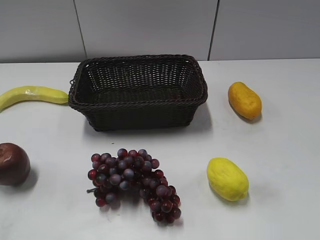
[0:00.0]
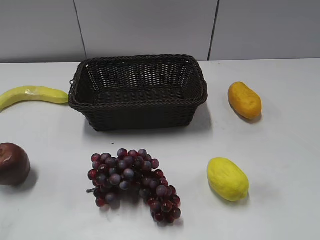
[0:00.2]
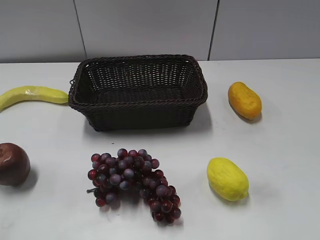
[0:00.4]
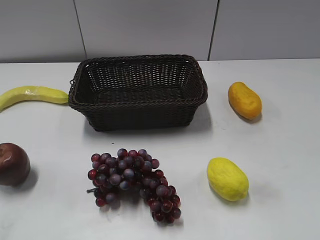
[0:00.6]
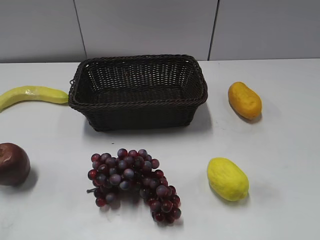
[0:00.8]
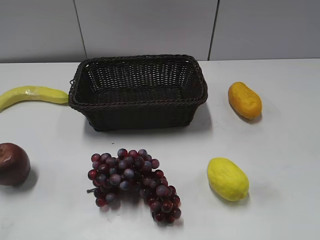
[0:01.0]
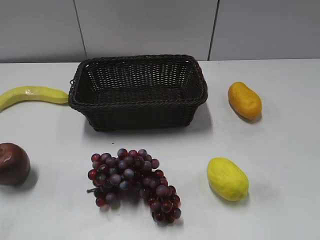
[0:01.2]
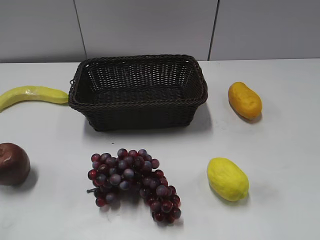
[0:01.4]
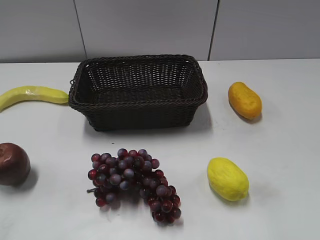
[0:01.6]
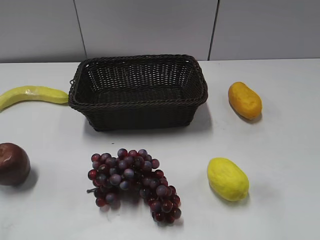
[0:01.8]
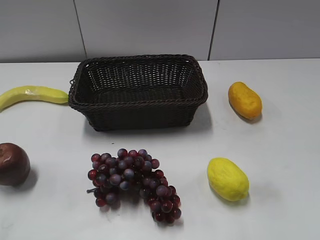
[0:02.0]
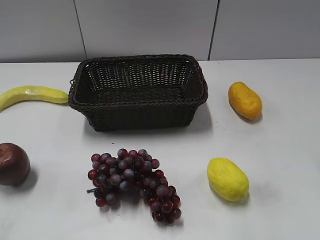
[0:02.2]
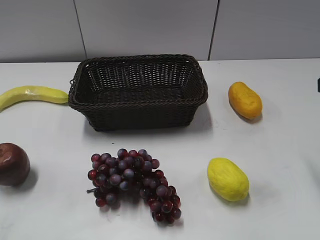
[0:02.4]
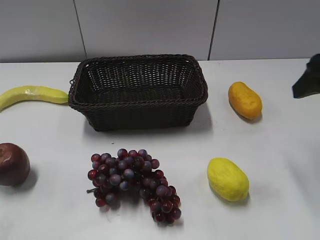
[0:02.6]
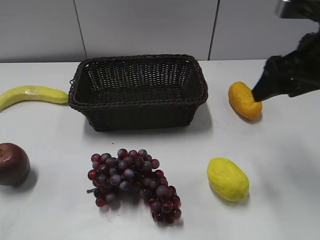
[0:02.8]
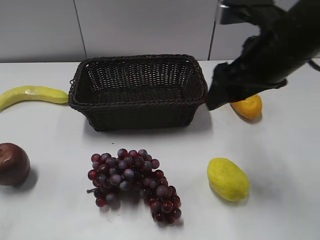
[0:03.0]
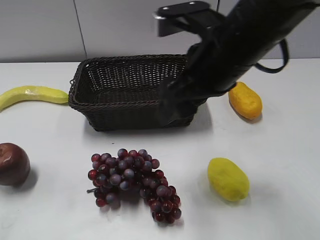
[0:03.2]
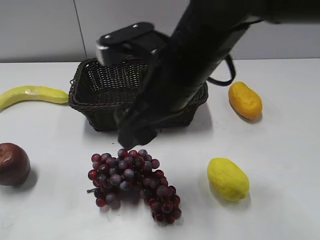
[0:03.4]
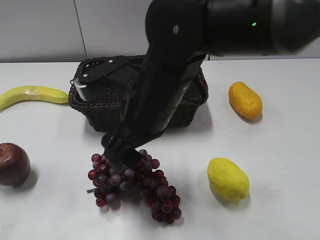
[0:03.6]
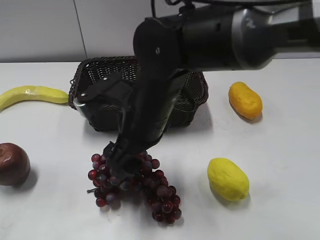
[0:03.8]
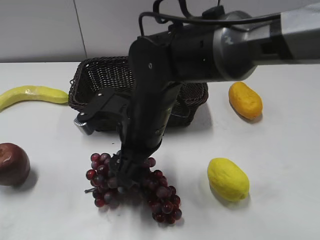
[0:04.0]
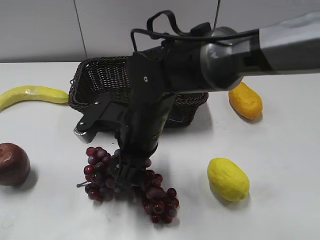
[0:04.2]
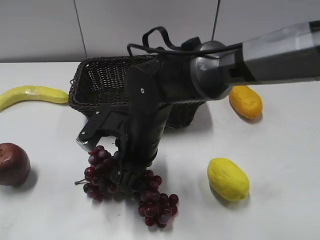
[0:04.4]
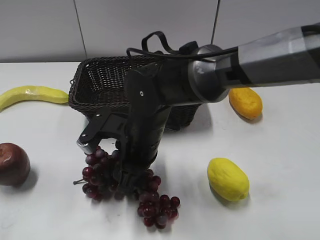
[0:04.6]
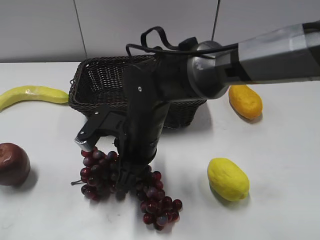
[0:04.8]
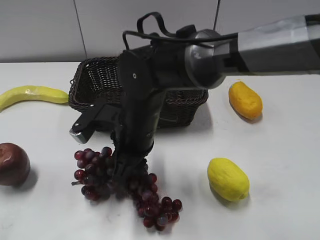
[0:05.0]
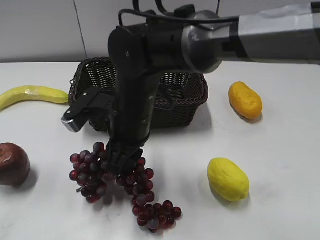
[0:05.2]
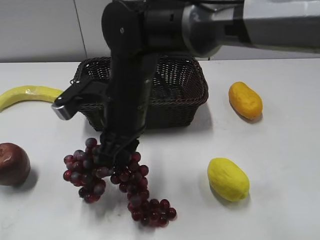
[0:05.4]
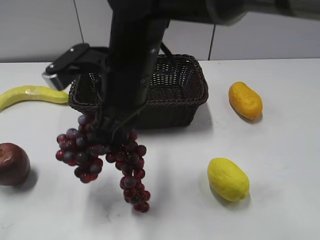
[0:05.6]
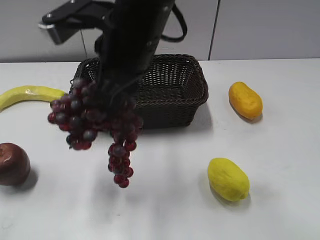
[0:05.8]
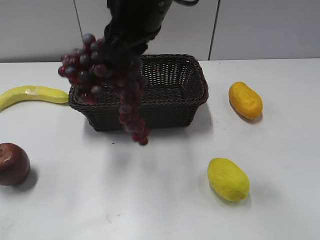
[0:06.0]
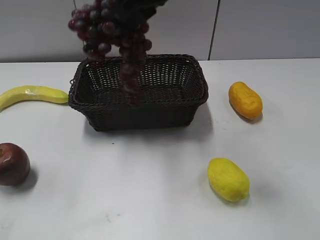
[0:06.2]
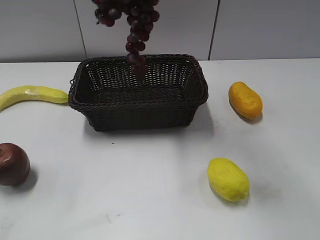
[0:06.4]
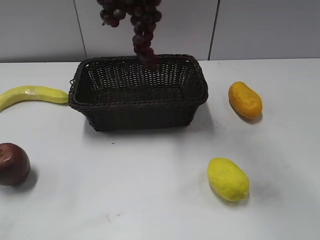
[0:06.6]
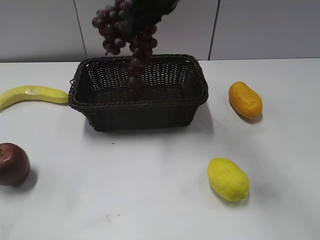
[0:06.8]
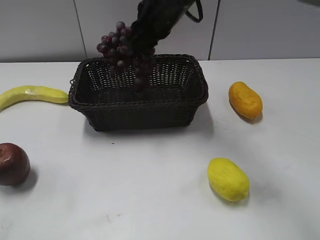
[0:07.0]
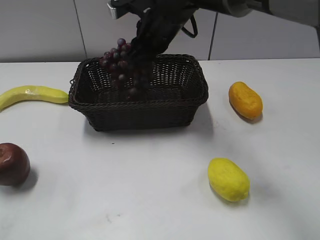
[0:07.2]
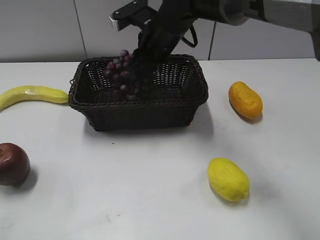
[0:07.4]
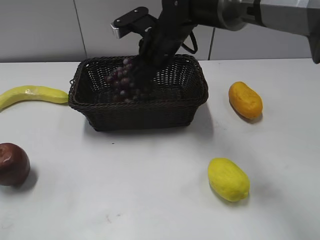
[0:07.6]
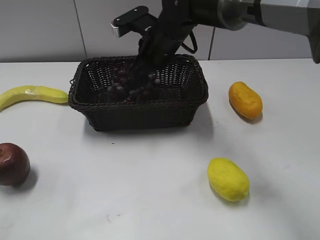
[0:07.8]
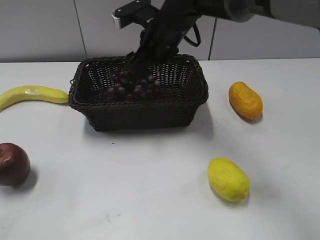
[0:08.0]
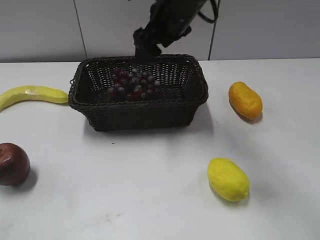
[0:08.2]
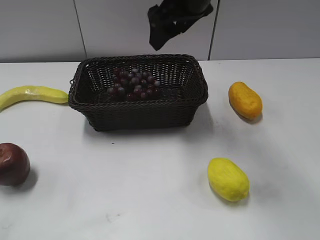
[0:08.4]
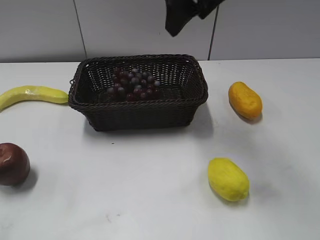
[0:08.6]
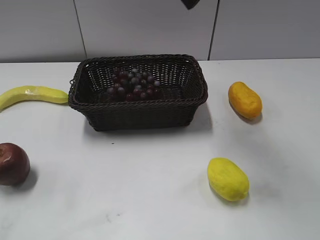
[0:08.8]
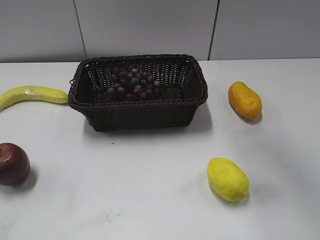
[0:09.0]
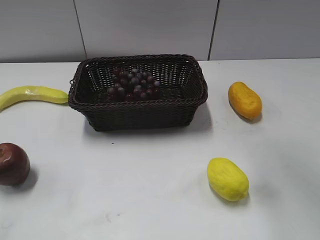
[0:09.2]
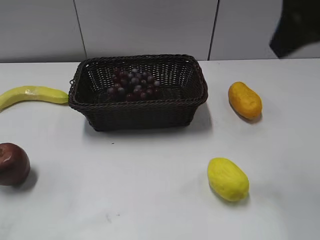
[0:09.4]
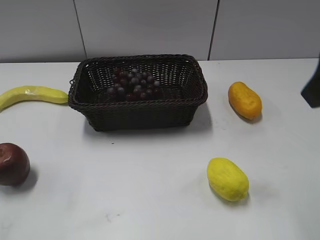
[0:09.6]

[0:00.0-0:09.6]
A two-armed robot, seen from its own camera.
Step, 0:02.2 to 0:05.2: Grasp the grape with right gripper.
Step, 0:05.4 to 0:08.0: Place the grape in the basket with right gripper.
0:01.6 to 0:03.2: The right gripper heads to the left and forward, covering about 30 cm.
0:03.2 to 0:04.8: The right gripper moves downward and to the left, approximately 20 cm, and closes up.
0:04.8 to 0:06.4: The right gripper is displaced upward and forward by some 25 cm.
0:06.4 to 0:08.0: The right gripper goes about 15 cm downward, and opens.
0:08.0 to 0:09.6: The right gripper shifts about 35 cm backward, to the right and upward.

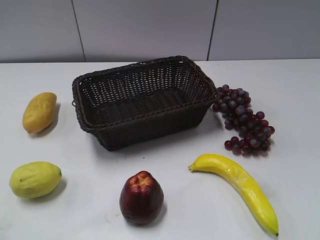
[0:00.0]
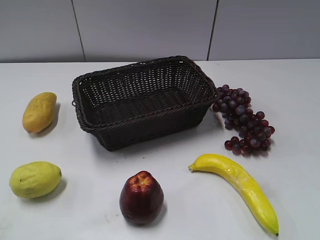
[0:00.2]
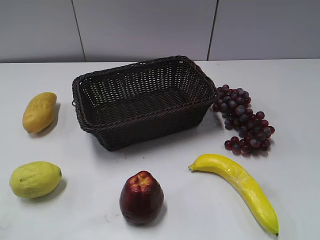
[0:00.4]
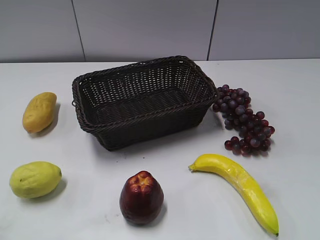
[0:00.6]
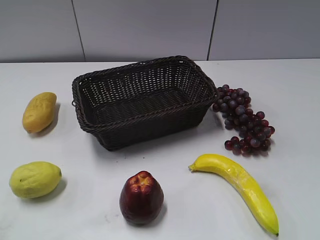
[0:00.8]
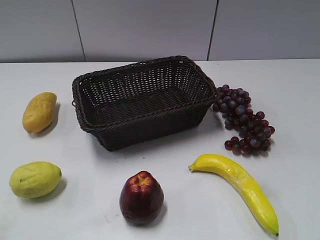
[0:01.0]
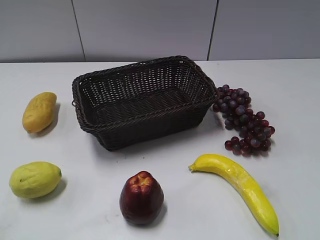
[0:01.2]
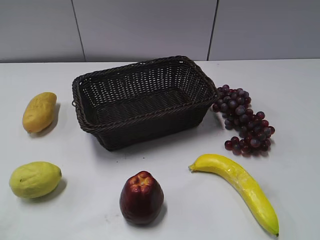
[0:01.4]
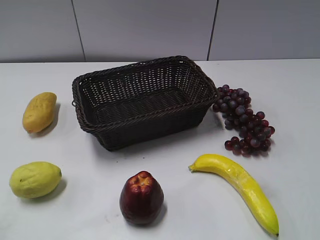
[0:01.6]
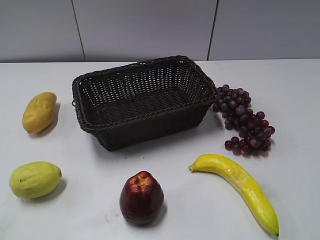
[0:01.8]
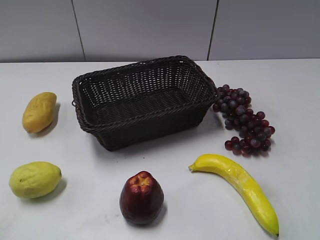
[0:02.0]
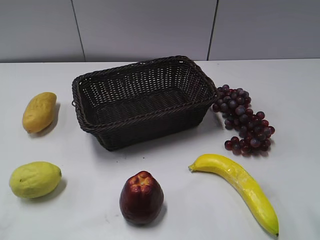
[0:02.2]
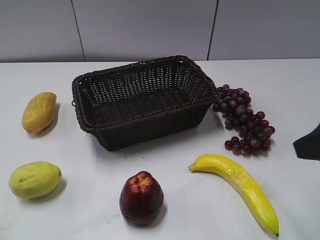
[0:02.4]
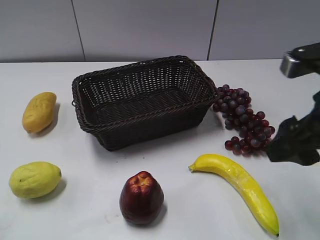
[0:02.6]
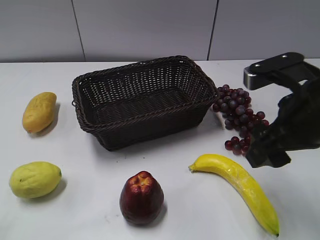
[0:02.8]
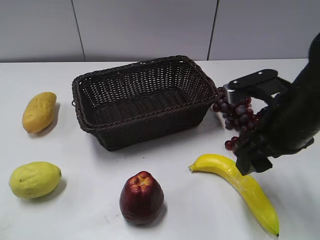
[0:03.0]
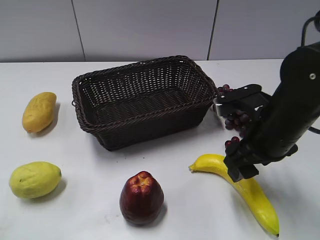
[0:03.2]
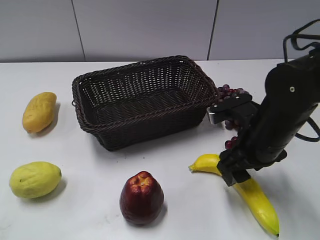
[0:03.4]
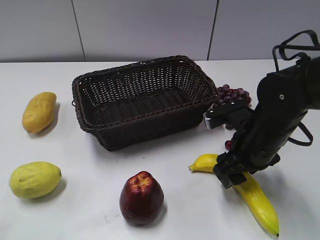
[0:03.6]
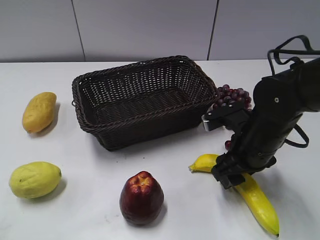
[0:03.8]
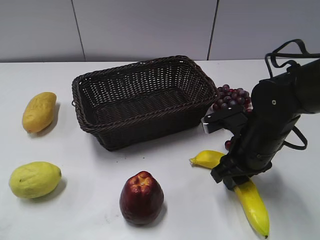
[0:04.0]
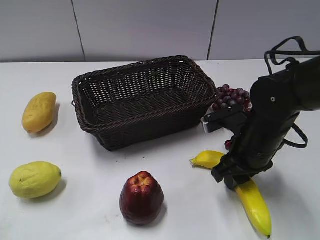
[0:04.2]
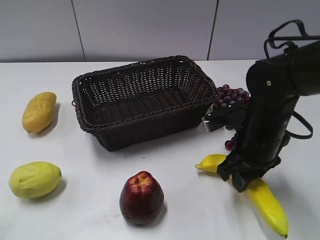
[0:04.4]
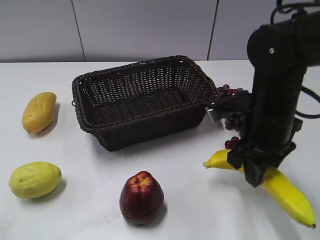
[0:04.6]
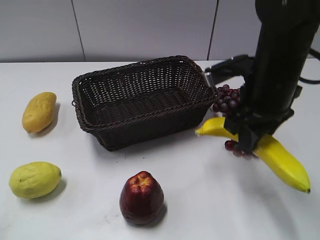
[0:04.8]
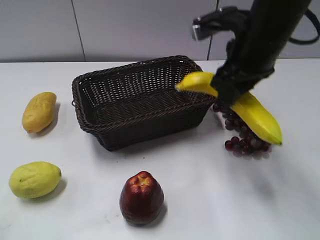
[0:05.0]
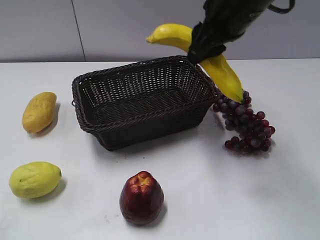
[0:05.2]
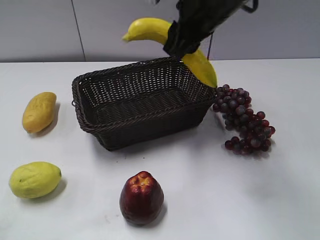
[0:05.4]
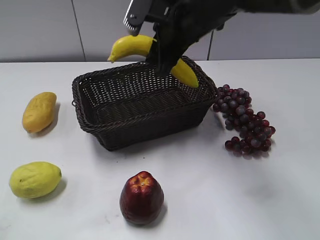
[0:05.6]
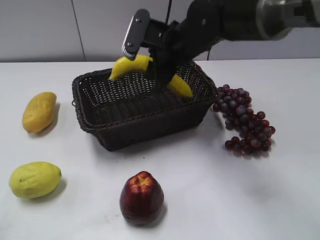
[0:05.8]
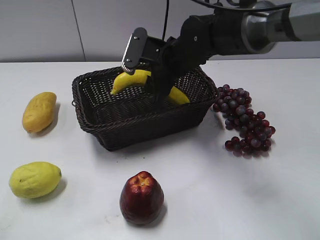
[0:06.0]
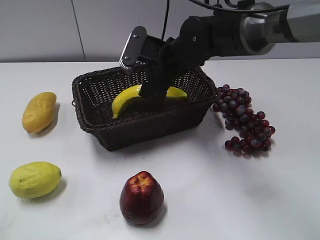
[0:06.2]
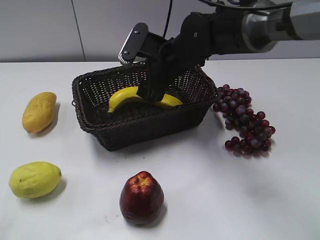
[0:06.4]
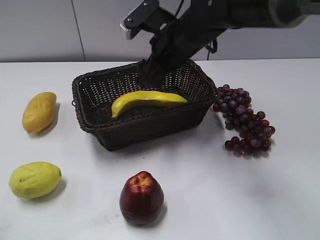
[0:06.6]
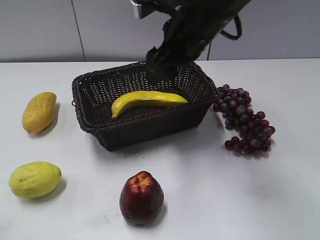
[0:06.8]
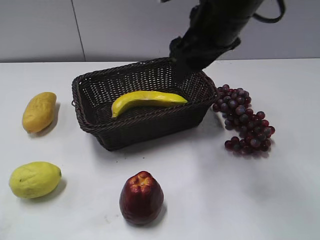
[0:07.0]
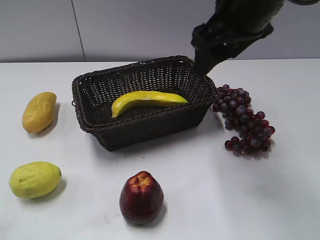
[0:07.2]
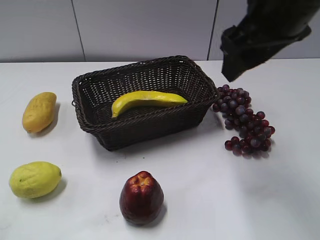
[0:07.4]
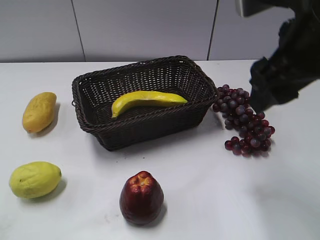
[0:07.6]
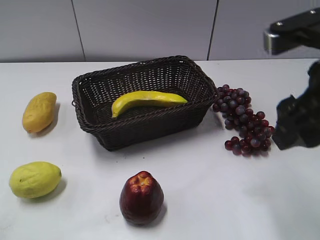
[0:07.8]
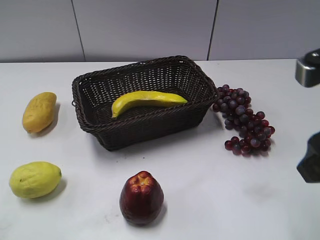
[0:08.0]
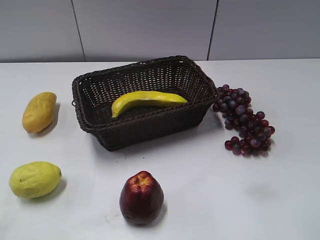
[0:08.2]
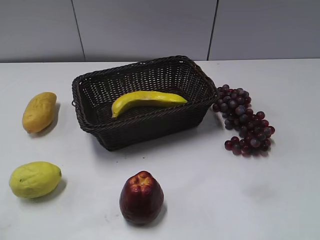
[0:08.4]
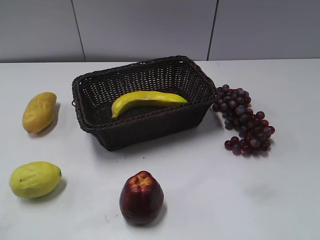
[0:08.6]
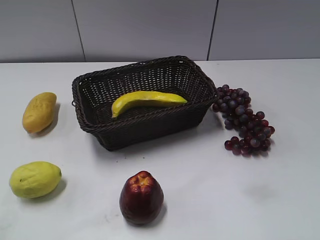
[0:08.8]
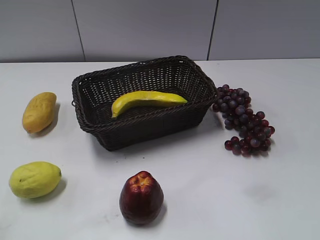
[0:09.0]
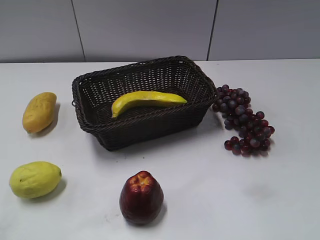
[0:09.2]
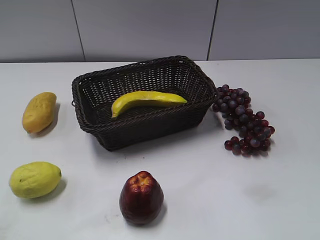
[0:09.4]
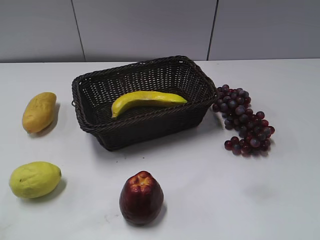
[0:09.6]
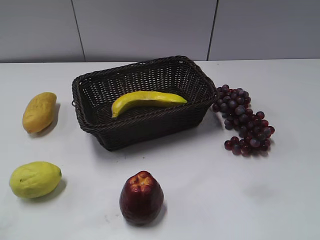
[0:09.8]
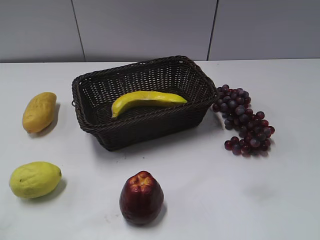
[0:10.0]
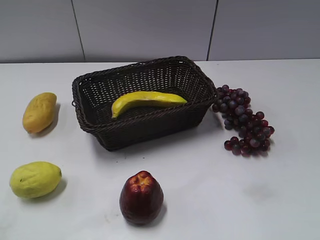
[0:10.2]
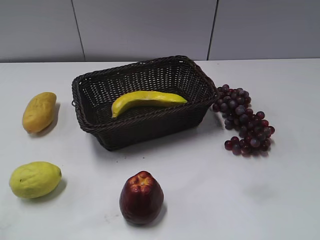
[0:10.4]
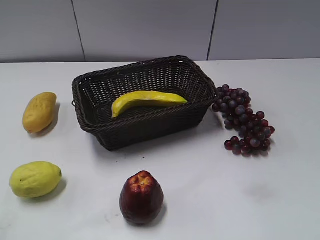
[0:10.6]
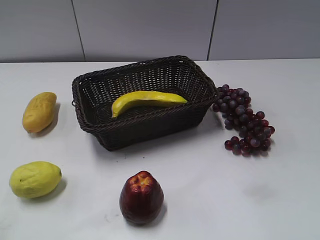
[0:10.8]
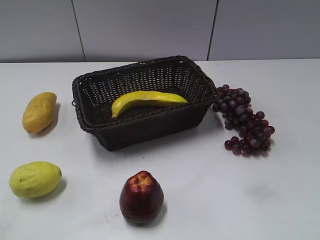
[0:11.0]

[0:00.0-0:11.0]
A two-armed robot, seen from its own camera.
Step, 0:02.4 to 0:04.2: Grasp the banana with right gripper.
Step, 0:04.4 to 0:06.4: Place the banana in the basket with right gripper.
0:01.6 to 0:03.2: The right gripper is displaced forward, to the left and downward by roughly 30 cm.
0:03.2 to 0:04.8: The right gripper travels downward and back again, roughly 5 cm each way, and closes up.
0:04.8 to 0:06.2: The right gripper goes approximately 15 cm to the left and forward, moves approximately 10 cm upward and comes back, and opens its fingers.
0:06.2 to 0:07.8: The right gripper heads backward, to the right and upward, covering some 30 cm.
0:07.8 to 0:09.4: The right gripper is displaced backward and to the right by about 15 cm.
